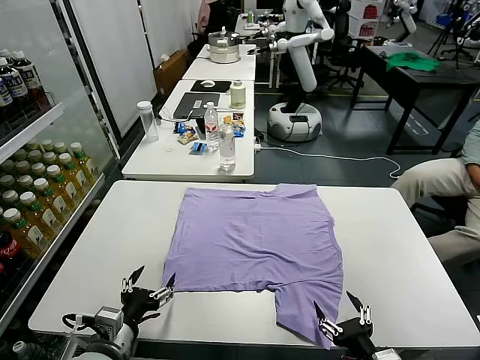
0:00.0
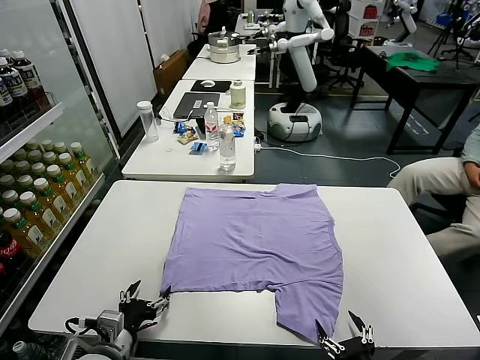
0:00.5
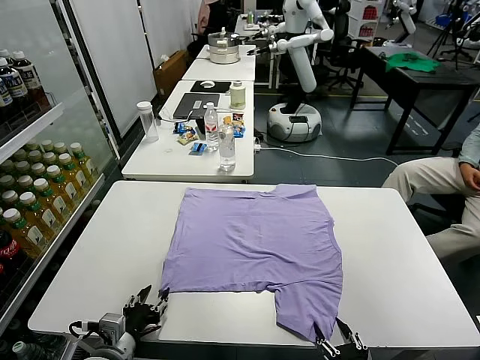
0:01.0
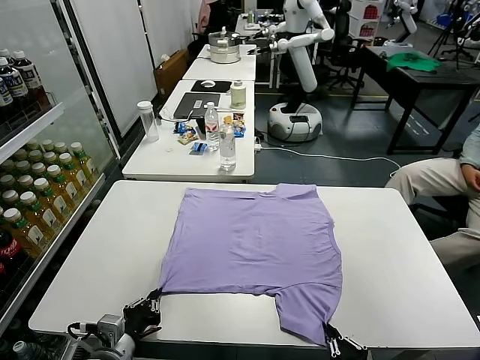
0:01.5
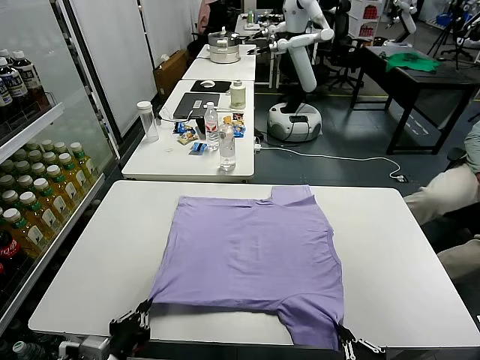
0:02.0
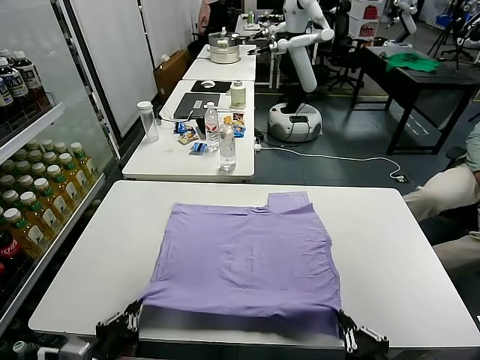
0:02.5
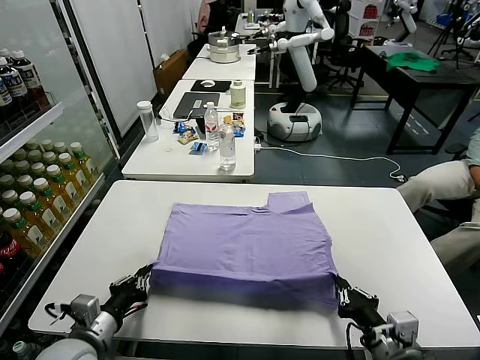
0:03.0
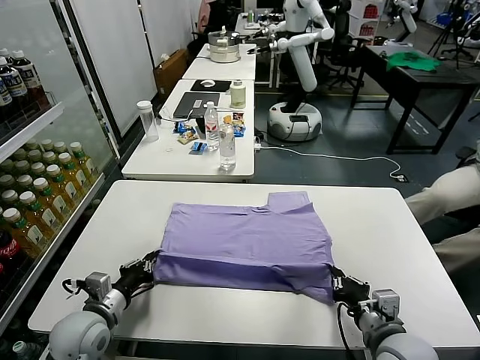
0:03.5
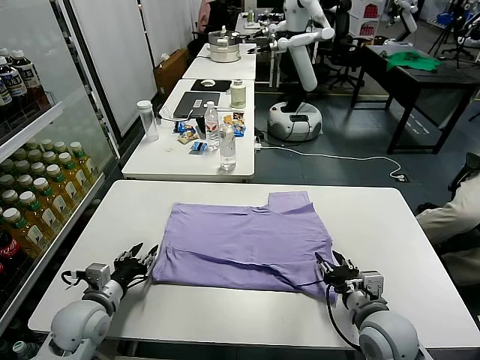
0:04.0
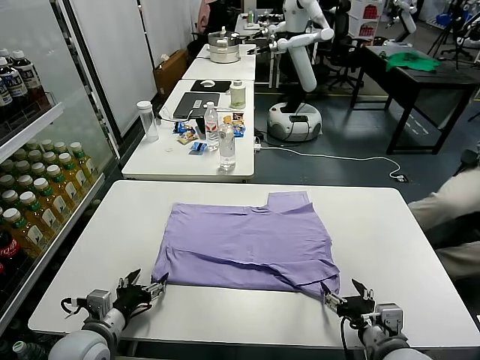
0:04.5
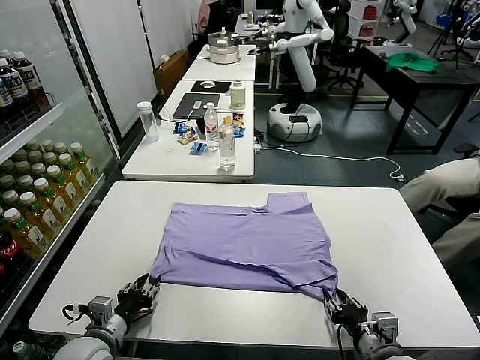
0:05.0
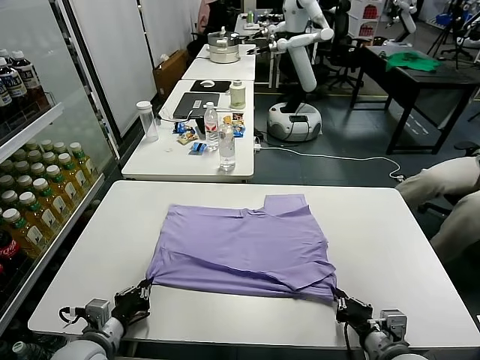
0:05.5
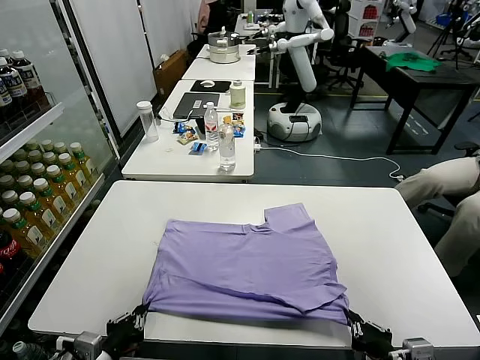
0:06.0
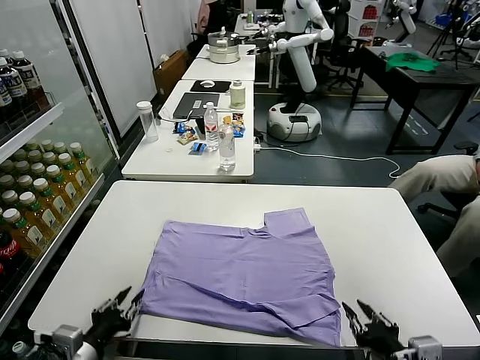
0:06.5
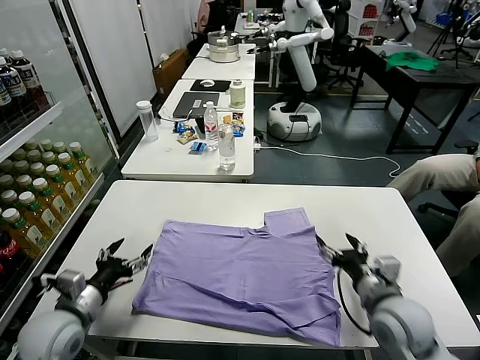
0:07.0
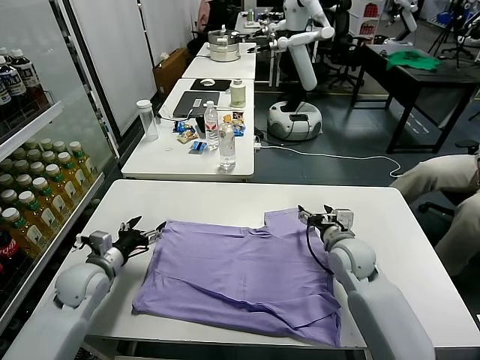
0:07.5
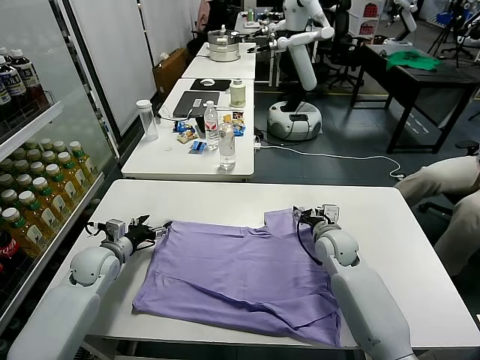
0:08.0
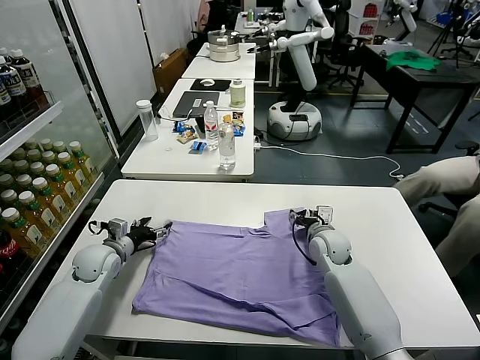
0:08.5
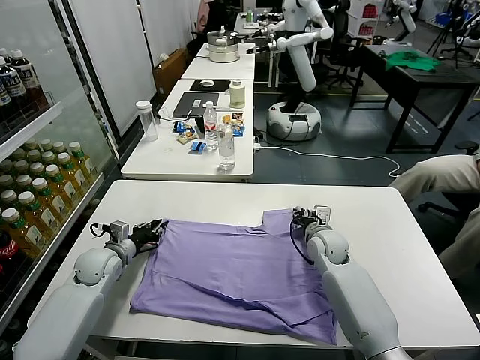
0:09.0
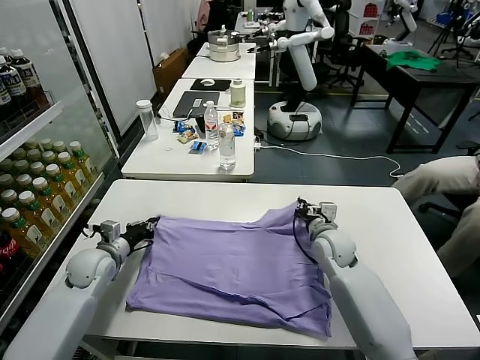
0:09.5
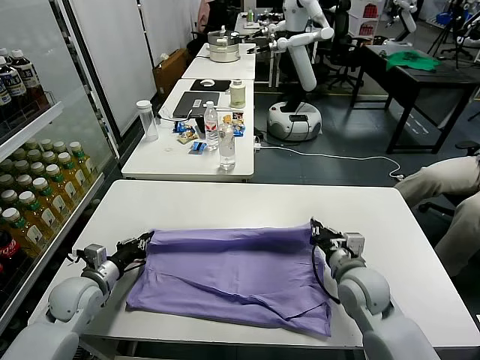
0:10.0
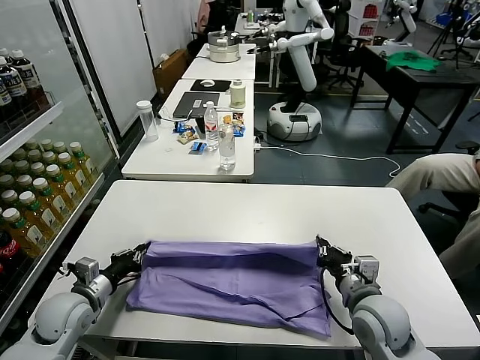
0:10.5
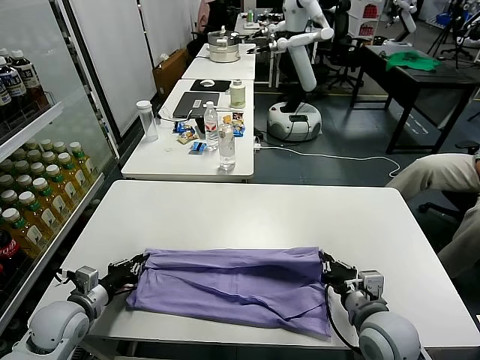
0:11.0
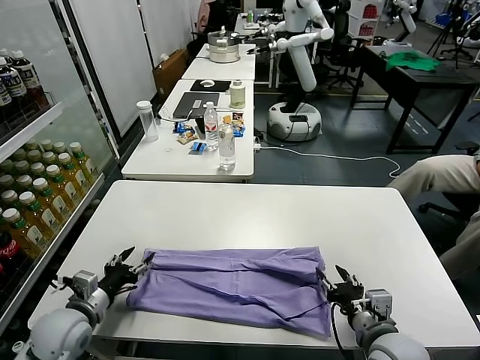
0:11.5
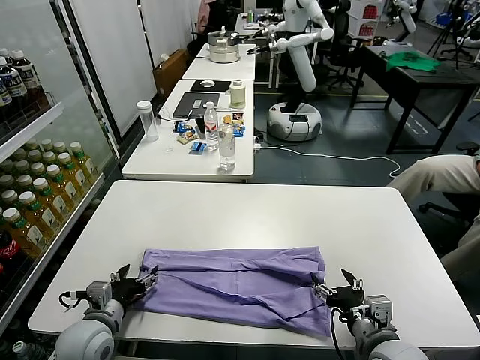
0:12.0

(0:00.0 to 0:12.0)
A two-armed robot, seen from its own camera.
Task of the whole recording: fold and organize the clothes.
Step, 0:00.0 - 0:01.5: use both grippers simultaneously to clamp the lower edge of the clothing fabric.
Step, 0:02.0 - 0:04.0: use both grippers to drag the lower edge of the fabric forward and fold it over the upper edge.
Step, 0:04.5 - 0:06.0: Drag the clothes downward with both gripper.
Step, 0:07.0 - 0:09.5: use both grippers simultaneously to clamp the upper edge of the clothing fabric.
Step, 0:10.0 - 0:11.0: use both grippers to drag the upper edge of the fabric backward and fold it over the lower edge.
0:02.0 - 0:04.0: Both grippers travel together forward, some 15 cm. The right gripper opens. The left gripper opens up.
0:04.0 - 0:06.0: The two grippers go roughly 15 cm backward. The left gripper closes its fingers. Meanwhile the right gripper closes.
0:06.0 - 0:08.0: The grippers both shift forward by about 30 cm. The right gripper opens up; the left gripper opens its fingers.
0:08.0 - 0:10.0: The left gripper heads backward, covering about 10 cm, and closes its fingers. The right gripper moves backward, approximately 15 cm, and closes up.
0:10.0 - 0:12.0: The right gripper travels backward by about 15 cm, and opens up. Meanwhile the left gripper shifts roughly 10 cm backward and to the right, and opens its fingers.

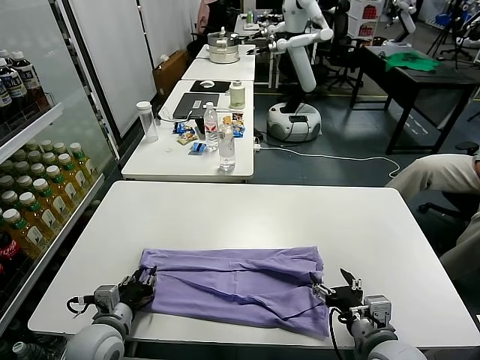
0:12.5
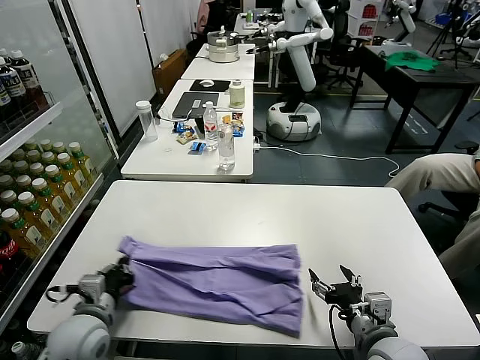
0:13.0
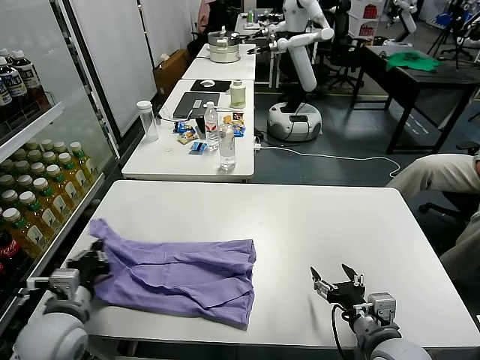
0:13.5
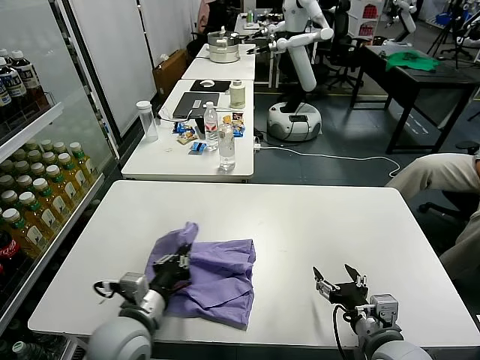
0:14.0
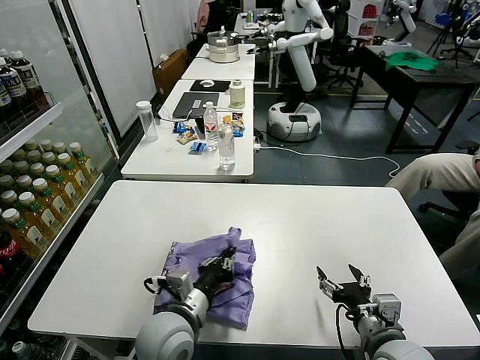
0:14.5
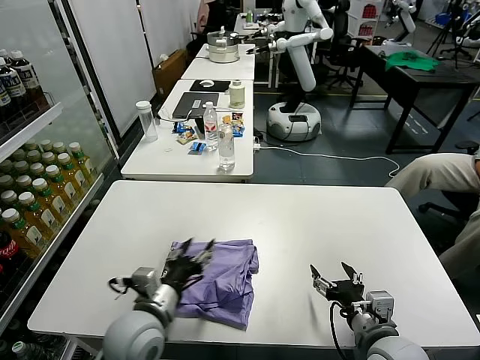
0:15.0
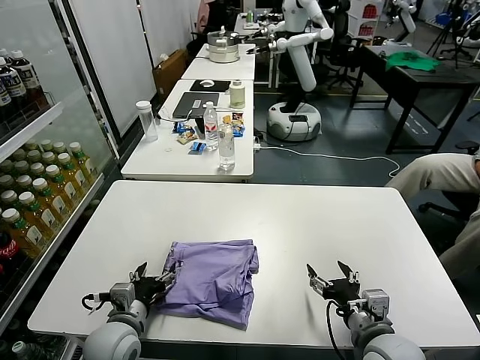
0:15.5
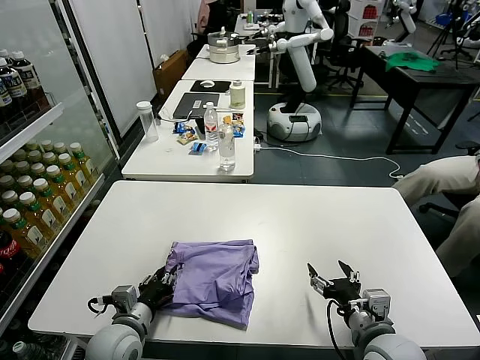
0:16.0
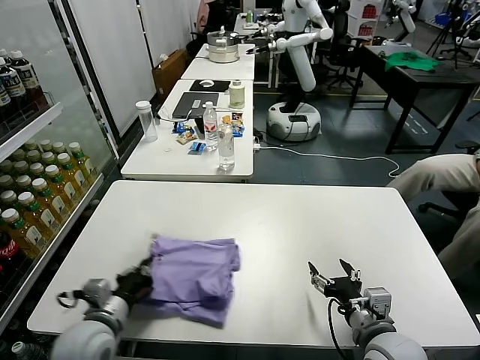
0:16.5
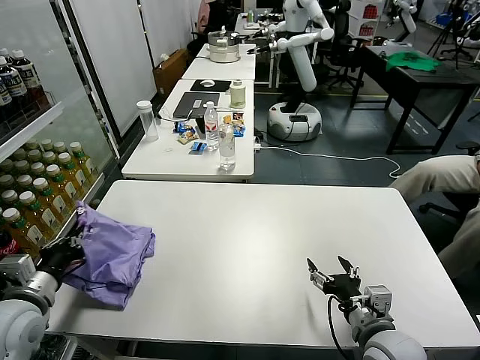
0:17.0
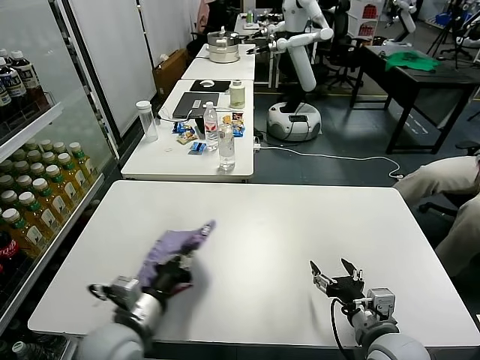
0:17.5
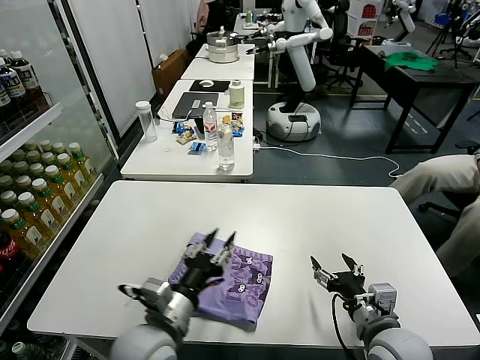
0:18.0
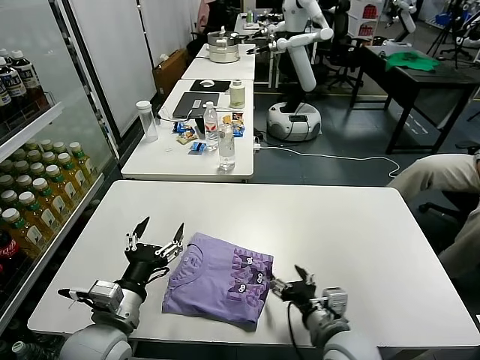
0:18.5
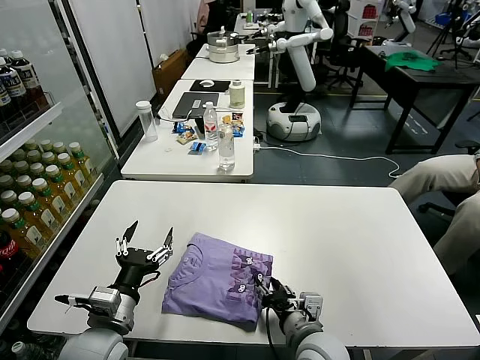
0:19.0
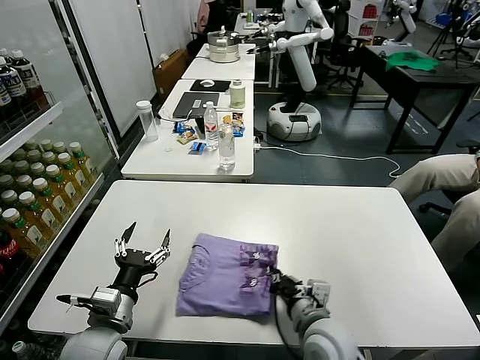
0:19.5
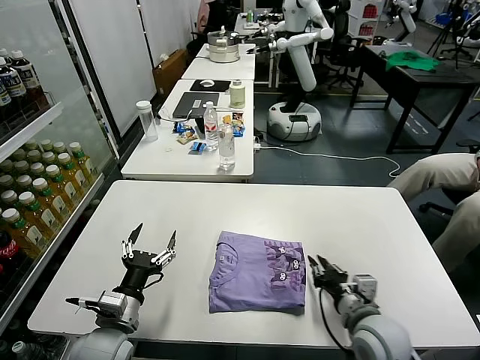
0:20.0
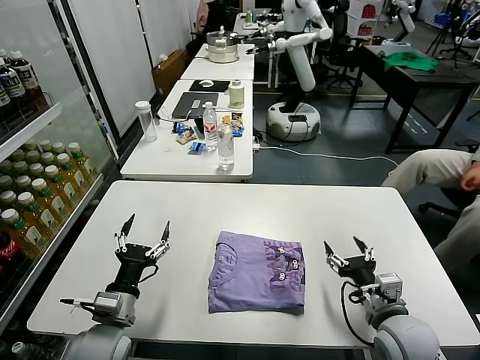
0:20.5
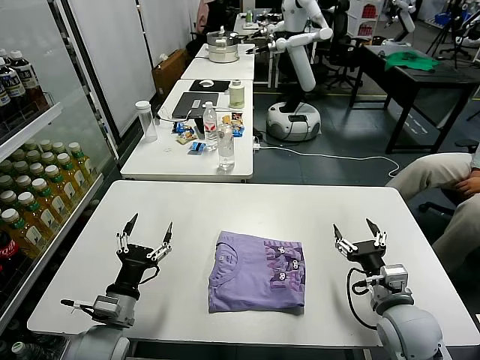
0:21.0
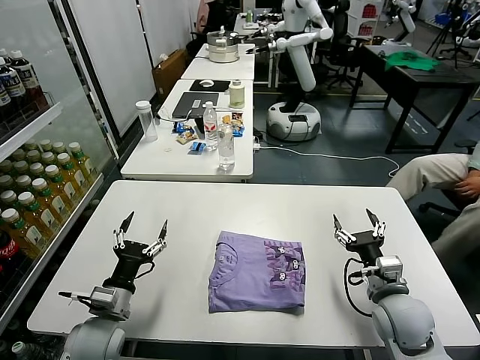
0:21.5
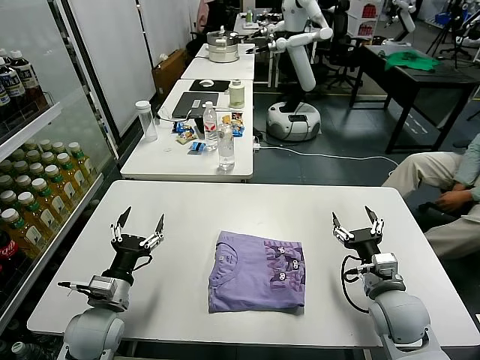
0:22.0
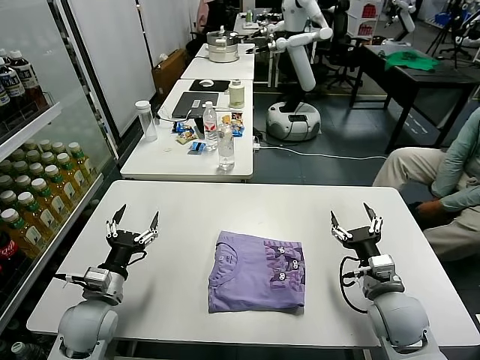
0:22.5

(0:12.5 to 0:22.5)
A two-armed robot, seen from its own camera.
Task of the whole recording: fold and organize the clothes.
Step, 0:13.0 - 0:15.0: use the left gripper to drag the left edge of the fabric to the left and folds it over the right edge.
Step, 0:15.5 - 0:18.0: Flip the folded clothes over with left gripper.
Step, 0:19.0 - 0:20.0: Drag the clothes to the center of the table.
0:12.5 - 0:14.5: The left gripper travels to the right and upward by some 15 cm, and closes up.
0:14.5 - 0:16.5: The left gripper shifts about 15 cm to the left, and opens, then closes again.
0:16.5 - 0:18.5: The left gripper goes left and right, about 25 cm each way, reversing 2 times, and opens up; the right gripper is displaced to the left by approximately 5 cm.
0:18.5 - 0:20.5: The right gripper shifts roughly 10 cm to the right, and closes and opens again, while the left gripper goes roughly 5 cm downward.
0:20.5 - 0:22.5: The left gripper moves roughly 5 cm.

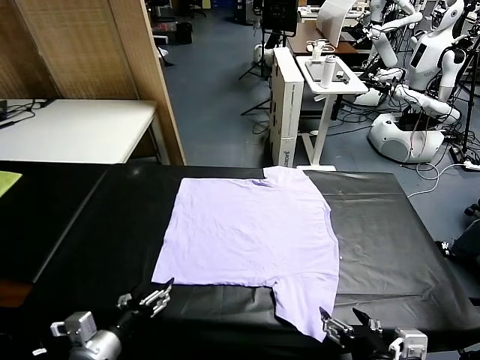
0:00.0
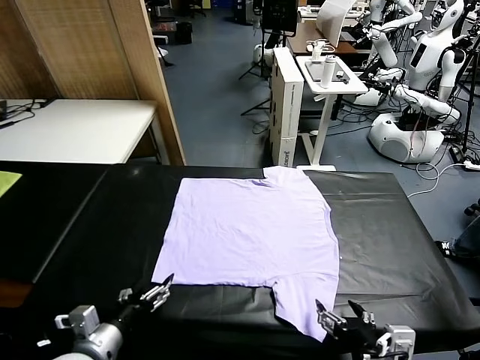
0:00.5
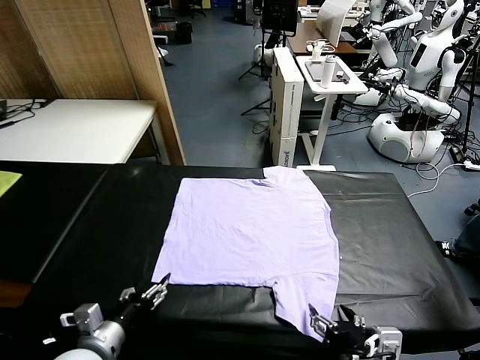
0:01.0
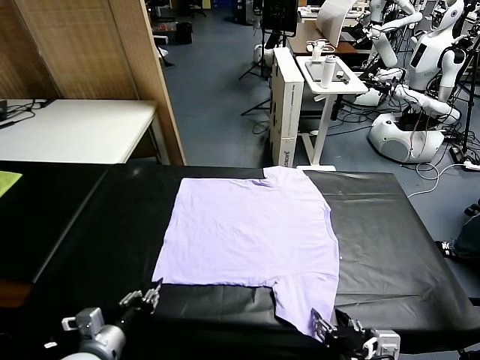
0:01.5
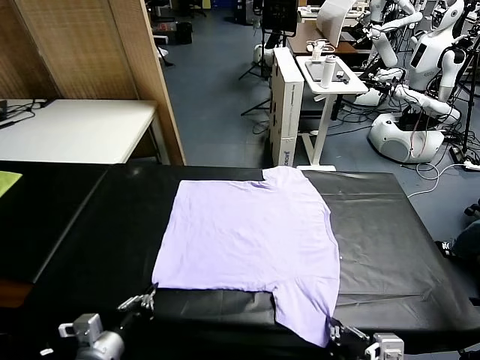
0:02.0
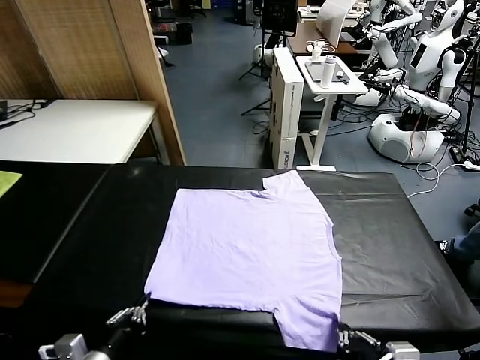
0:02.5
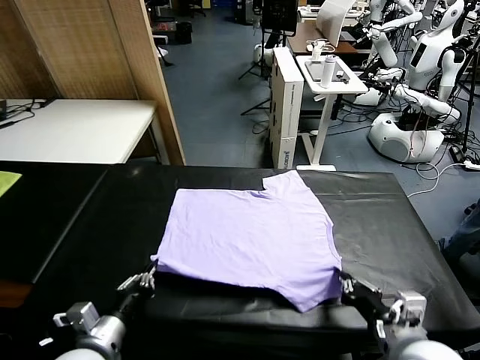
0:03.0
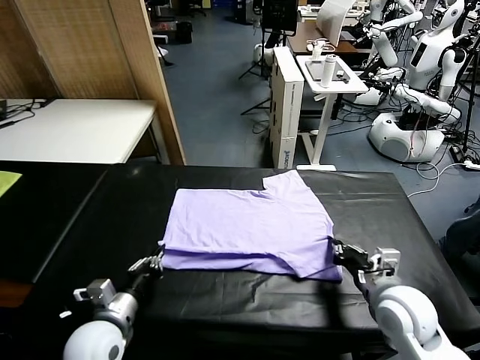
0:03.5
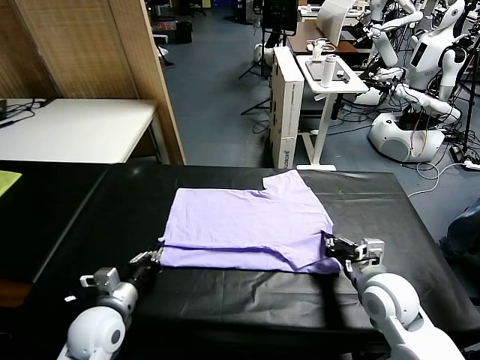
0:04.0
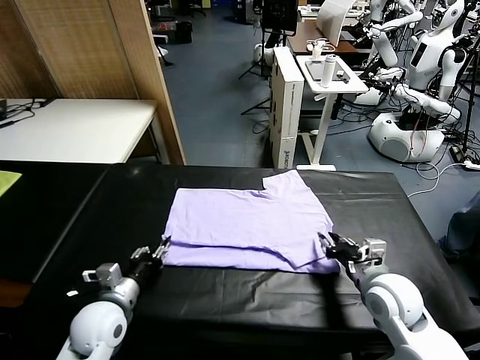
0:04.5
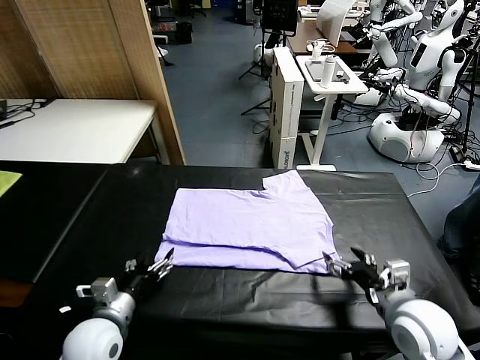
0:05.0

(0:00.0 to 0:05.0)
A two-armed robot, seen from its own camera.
Task of the whole recording: fold and organize the clothes.
Step, 0:00.0 - 0:02.0: use both grippers simultaneously to clamp the lower edge of the clothing fabric.
Step, 0:02.5 - 0:04.5: use both grippers to drag the lower edge of the fabric forward and fold it over the upper edge.
0:02.5 - 0:05.0: The left gripper travels forward by about 10 cm, and opens its fingers. The right gripper is displaced forward and to the right by approximately 10 cm, and opens its fingers.
